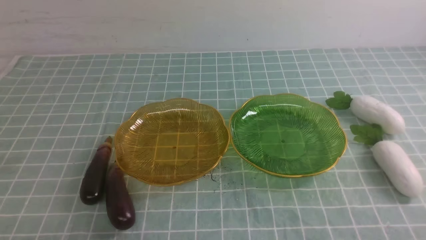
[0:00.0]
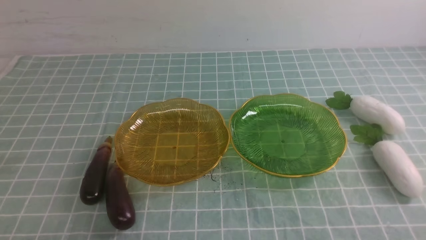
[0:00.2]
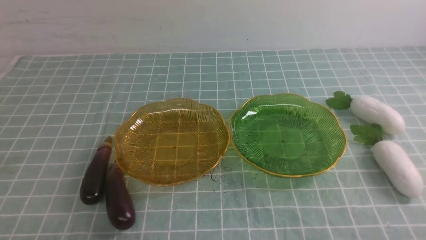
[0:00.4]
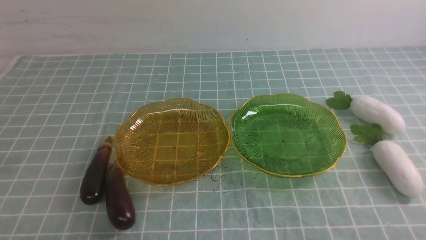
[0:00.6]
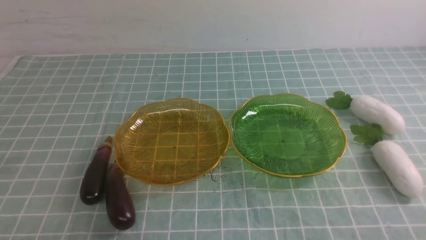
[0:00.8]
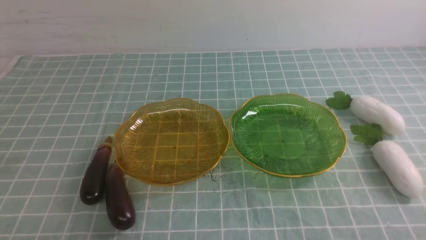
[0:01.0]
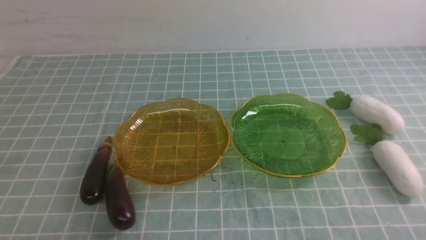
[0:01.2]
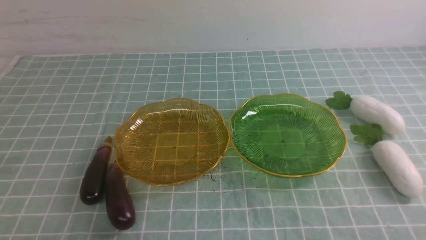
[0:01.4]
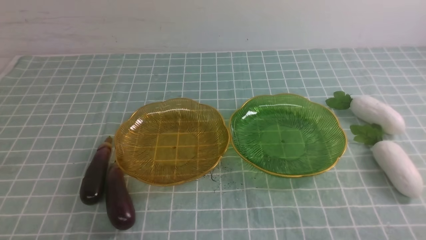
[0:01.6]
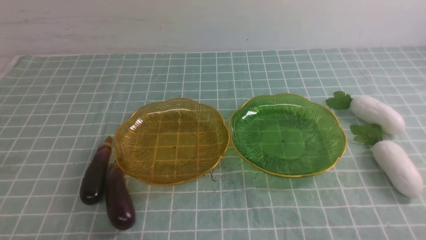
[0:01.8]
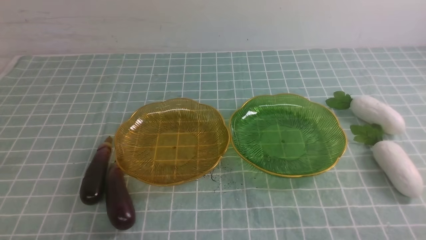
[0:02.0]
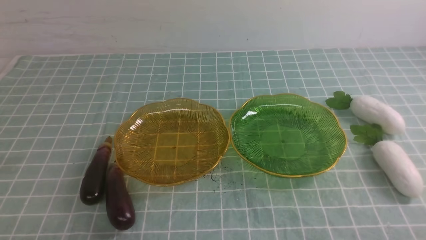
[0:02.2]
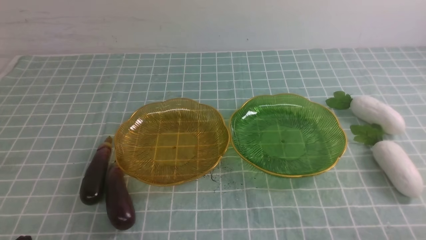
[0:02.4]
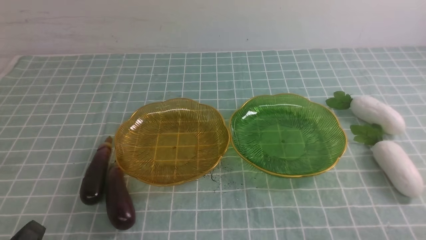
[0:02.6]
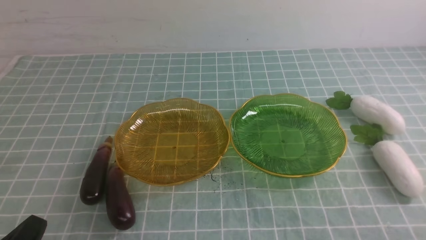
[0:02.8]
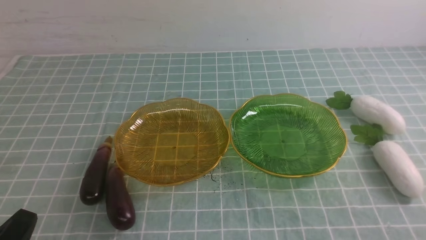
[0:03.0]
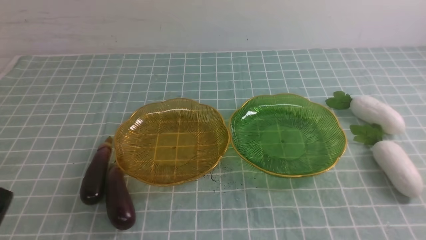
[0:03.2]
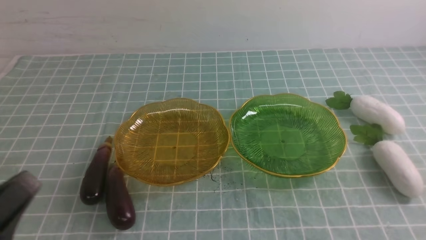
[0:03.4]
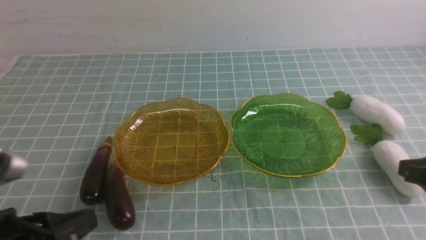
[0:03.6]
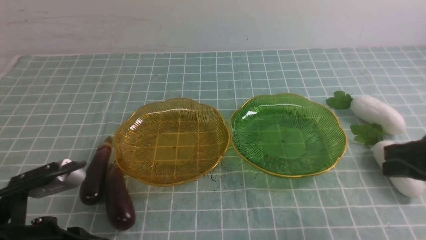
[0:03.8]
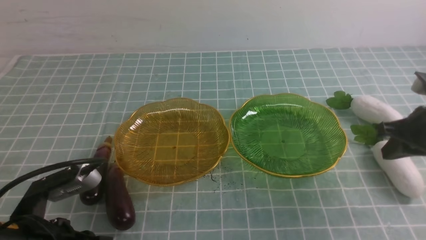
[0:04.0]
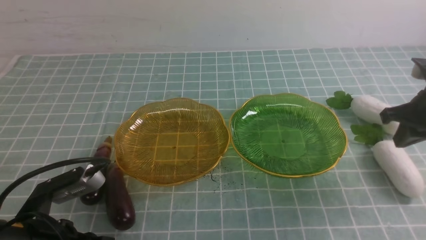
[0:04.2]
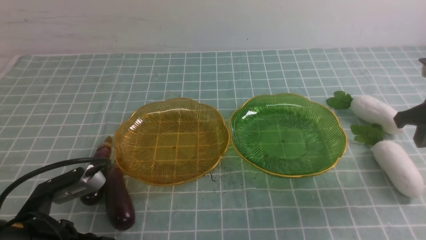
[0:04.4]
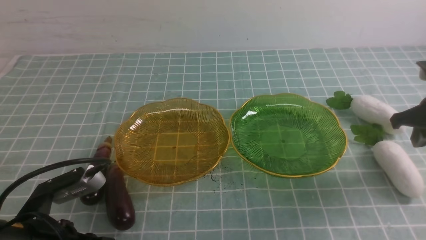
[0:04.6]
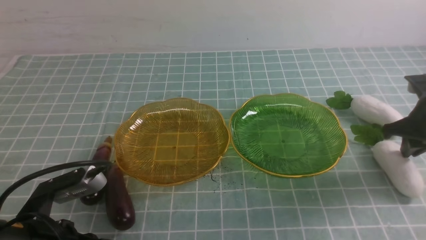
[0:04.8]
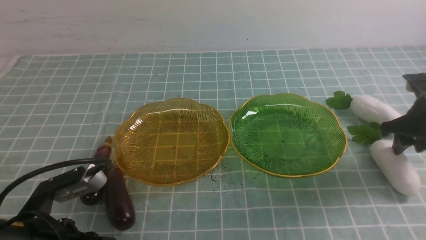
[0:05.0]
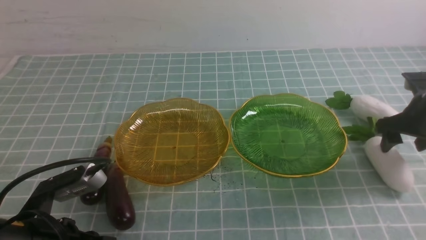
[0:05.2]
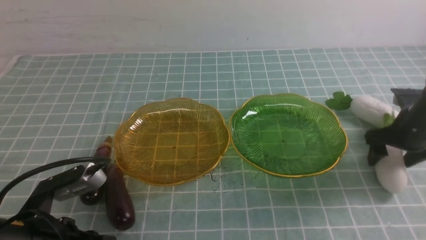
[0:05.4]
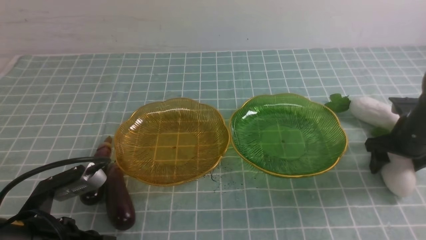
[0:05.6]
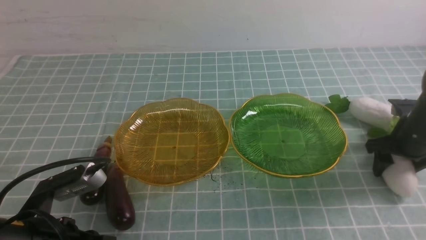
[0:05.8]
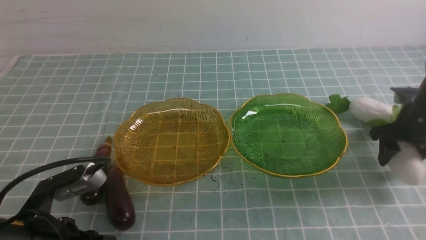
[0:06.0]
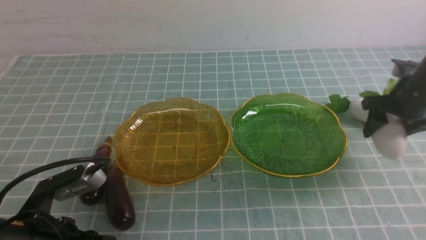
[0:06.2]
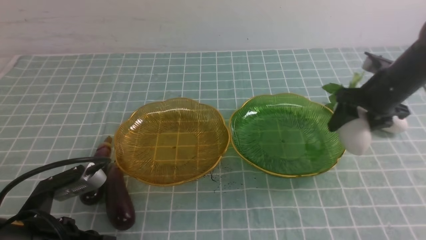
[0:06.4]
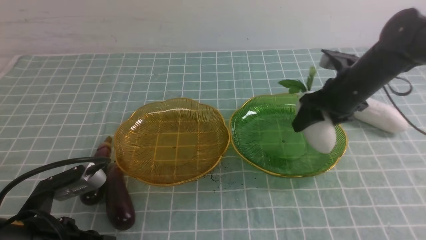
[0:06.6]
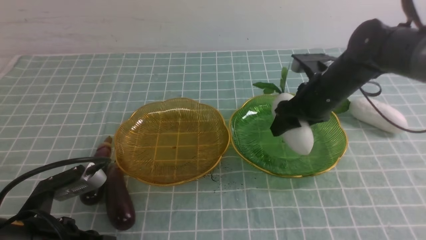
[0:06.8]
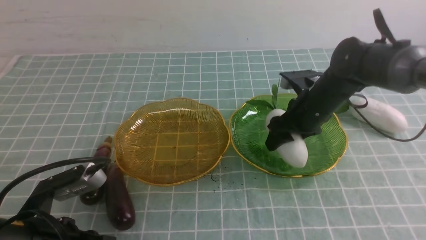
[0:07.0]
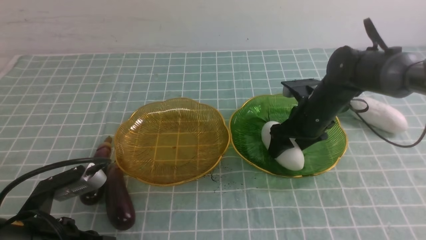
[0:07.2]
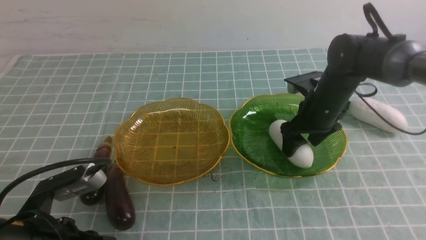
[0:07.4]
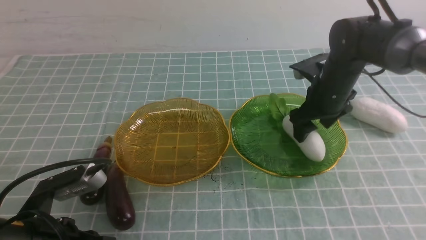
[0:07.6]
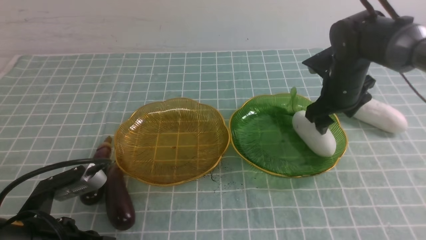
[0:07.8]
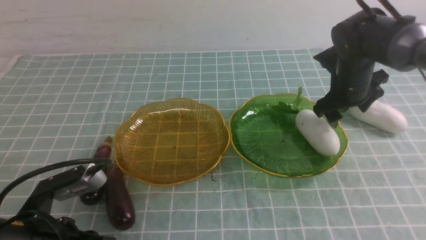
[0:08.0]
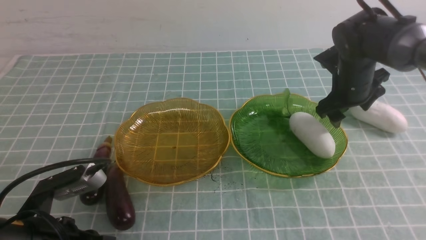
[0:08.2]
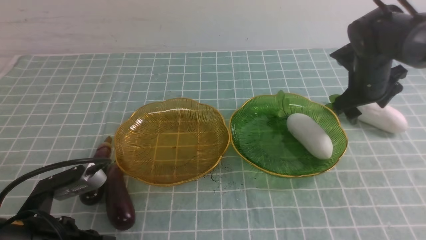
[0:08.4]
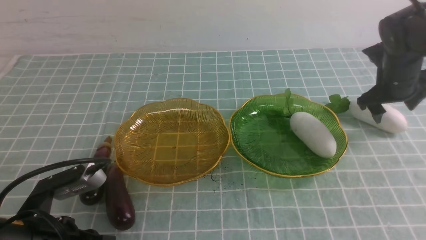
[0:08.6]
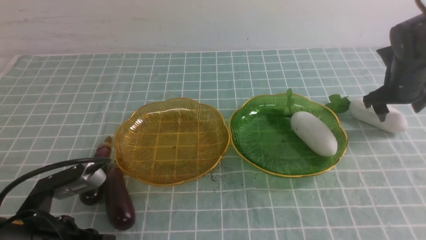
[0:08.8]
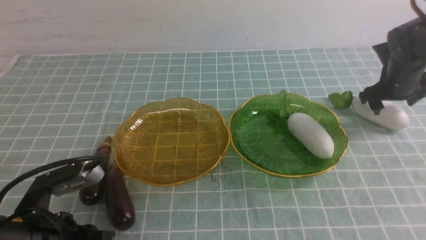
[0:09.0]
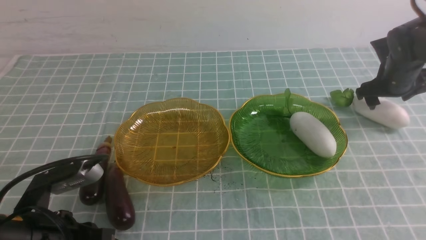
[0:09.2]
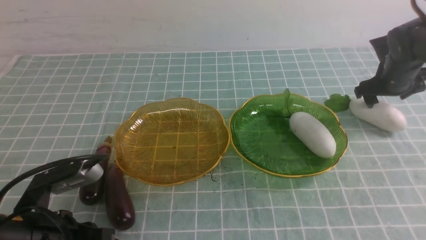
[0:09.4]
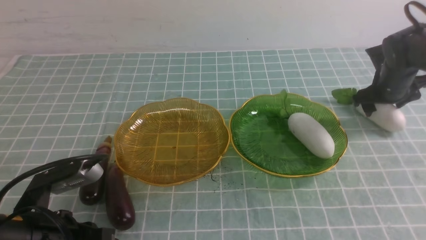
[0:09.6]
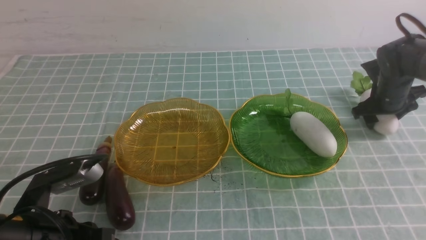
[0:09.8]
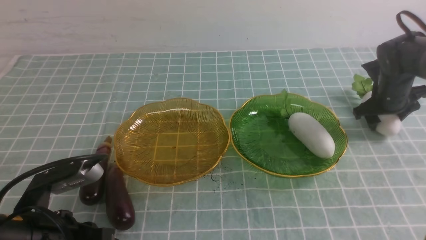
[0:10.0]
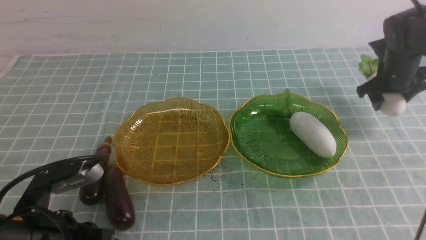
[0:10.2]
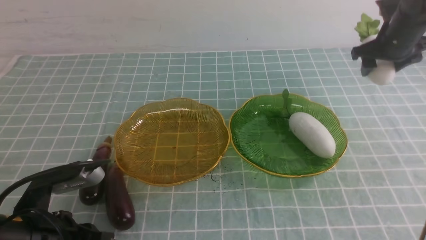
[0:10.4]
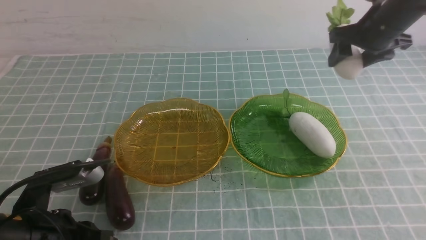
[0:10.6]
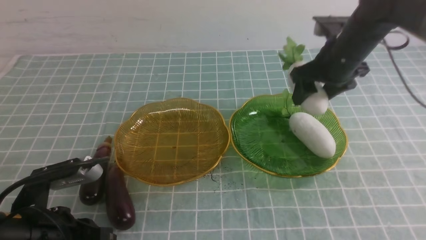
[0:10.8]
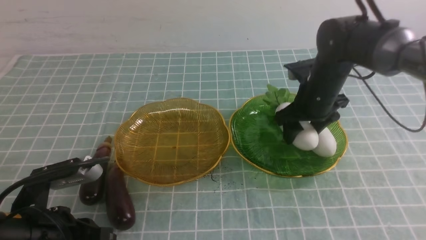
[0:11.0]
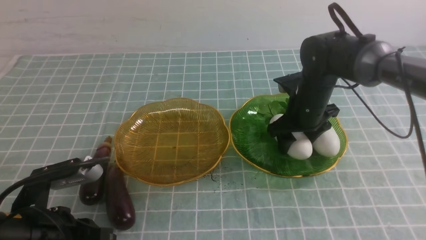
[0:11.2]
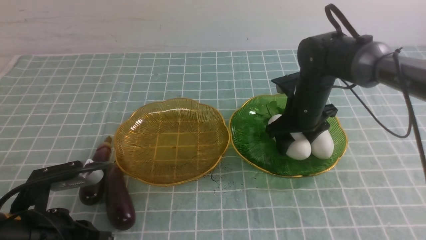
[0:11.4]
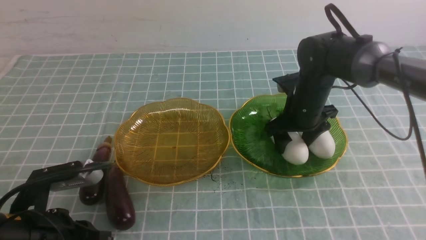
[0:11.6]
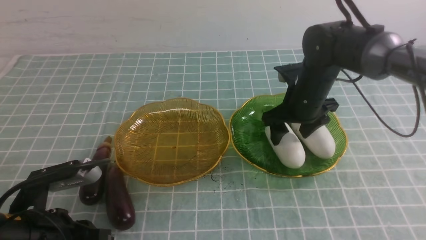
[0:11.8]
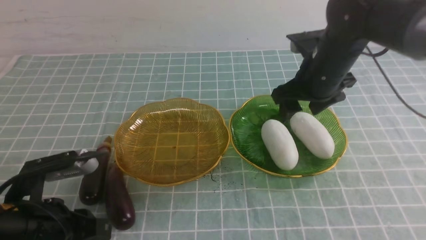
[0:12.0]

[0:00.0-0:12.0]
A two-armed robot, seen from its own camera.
Step, 0:00.0 to 0:11.8: use the right arm to grab a radish and put it into the right plate.
0:00.0 to 0:01.6: The two grippers keep their place.
0:01.6 to 0:03.0: The left gripper goes some 5 cm upward.
0:03.0 to 0:04.4: The left gripper travels forward by roughly 10 cm, while the right gripper goes about 30 cm forward.
0:04.4 to 0:06.0: The right gripper heads downward, covering approximately 5 cm, and opens up.
0:06.0 to 0:07.6: The right gripper moves to the left, about 15 cm.
0:07.6 to 0:09.0: The right gripper travels to the right by roughly 15 cm.
0:09.0 to 0:10.4: The right gripper goes about 10 cm upward.
0:10.4 to 0:12.0: The right gripper goes approximately 15 cm to the left and backward; the left gripper opens its fingers.

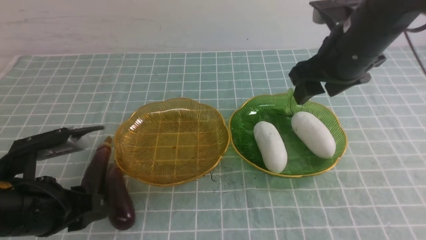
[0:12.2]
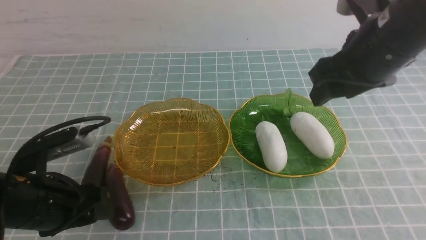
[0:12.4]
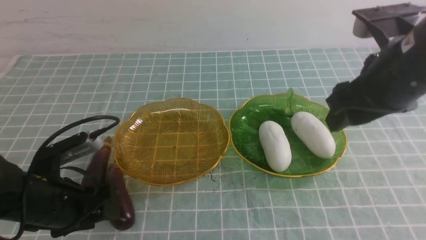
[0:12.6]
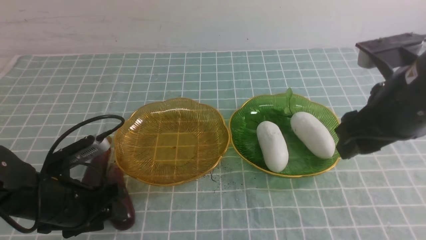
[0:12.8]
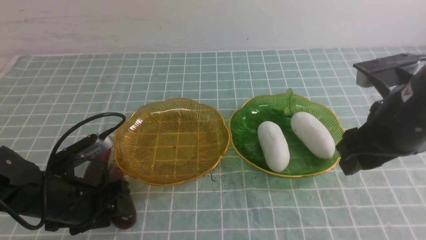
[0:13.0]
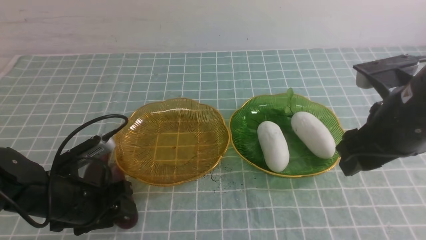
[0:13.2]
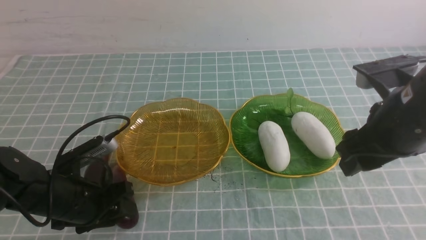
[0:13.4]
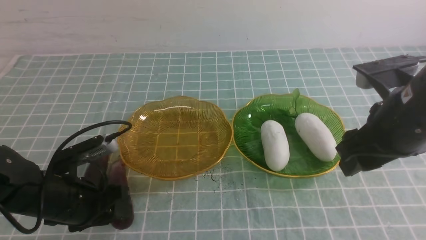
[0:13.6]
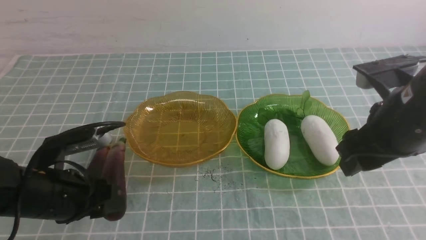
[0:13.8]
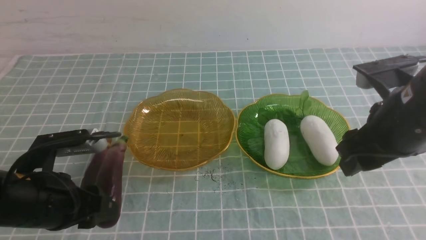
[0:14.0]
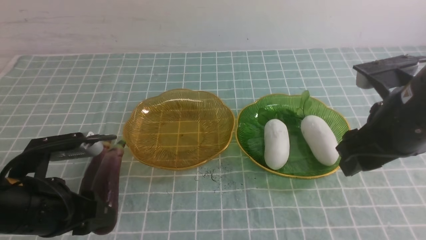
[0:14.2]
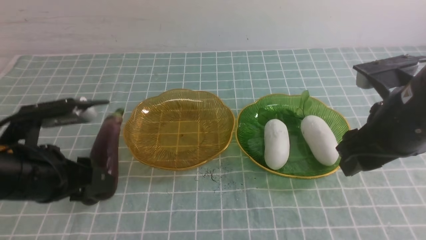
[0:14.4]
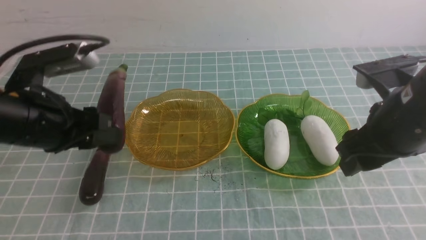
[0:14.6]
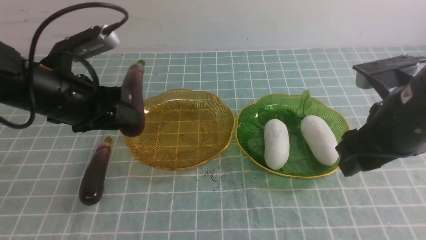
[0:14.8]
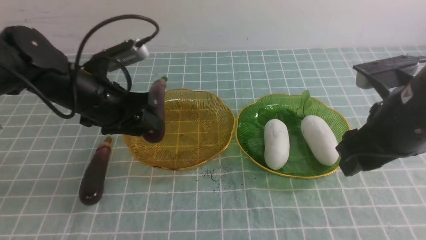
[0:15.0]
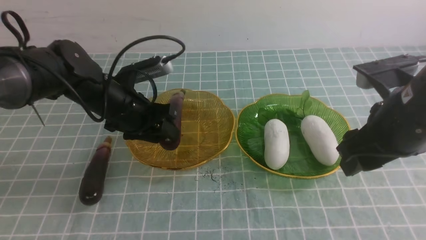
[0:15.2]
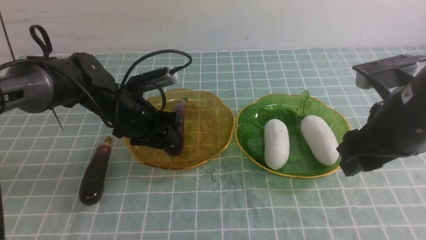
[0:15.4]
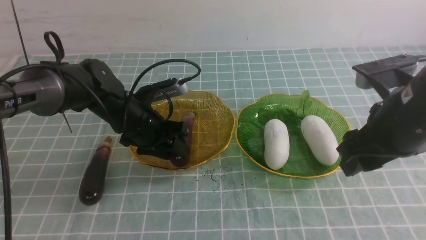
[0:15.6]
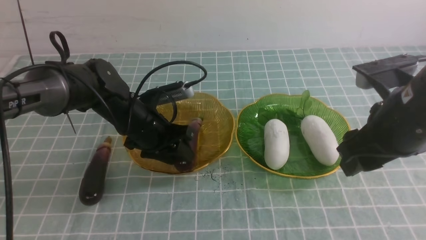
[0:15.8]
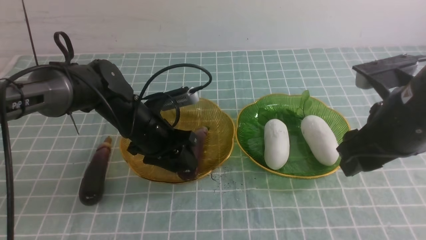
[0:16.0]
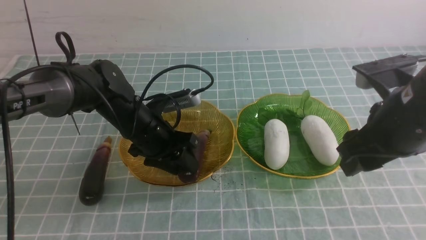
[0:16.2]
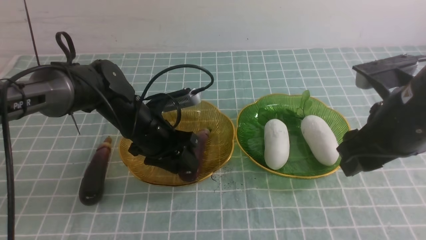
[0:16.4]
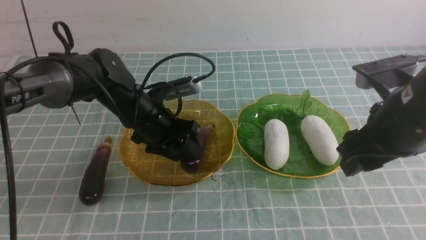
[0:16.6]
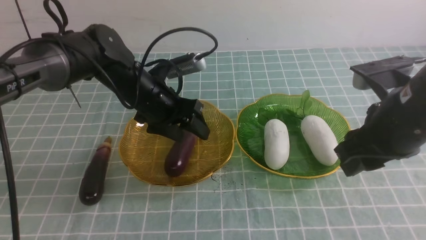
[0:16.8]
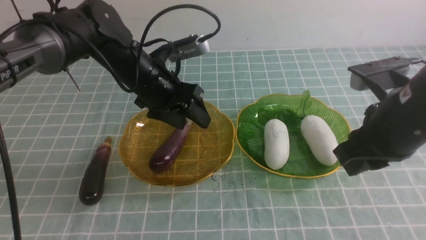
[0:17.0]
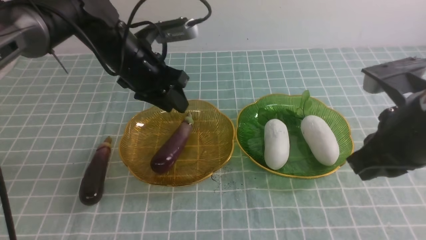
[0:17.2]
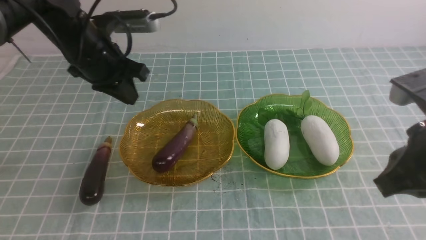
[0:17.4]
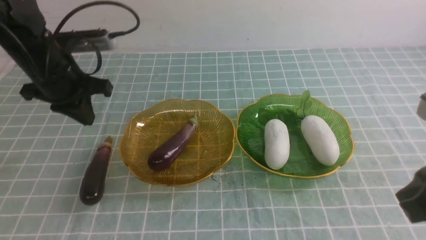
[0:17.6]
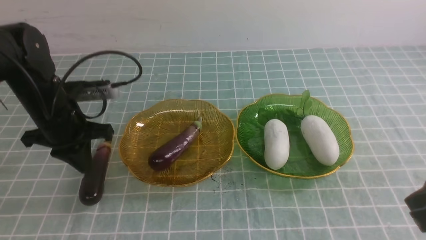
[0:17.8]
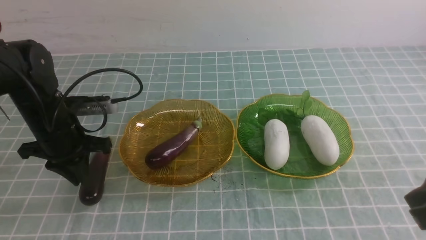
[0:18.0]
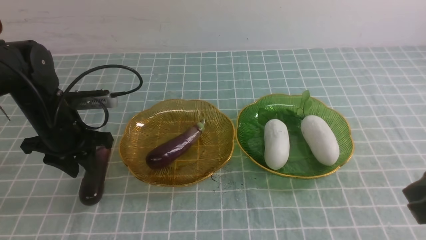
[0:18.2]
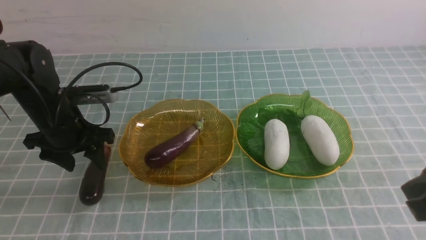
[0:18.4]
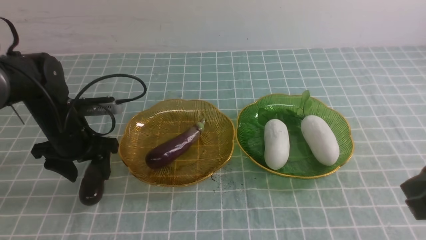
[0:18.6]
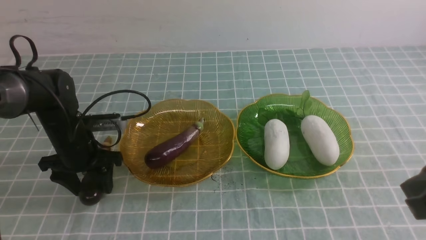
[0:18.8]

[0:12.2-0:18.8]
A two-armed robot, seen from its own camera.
0:12.2 to 0:13.8: The right gripper travels backward by approximately 10 cm.
0:13.8 to 0:15.4: The left gripper moves forward and to the right, about 20 cm.
0:15.4 to 0:17.2: The right gripper closes up; the left gripper is displaced upward by approximately 10 cm.
0:17.2 to 0:18.8: The right gripper goes about 5 cm backward, while the left gripper heads downward and to the left, covering some 15 cm, and opens its fingers.
